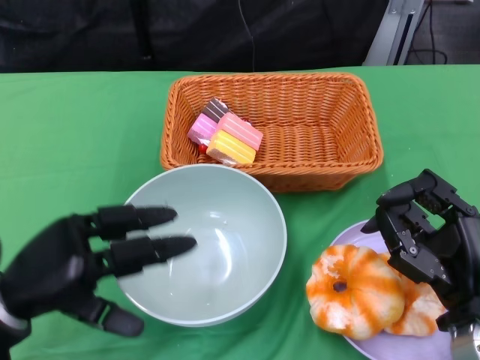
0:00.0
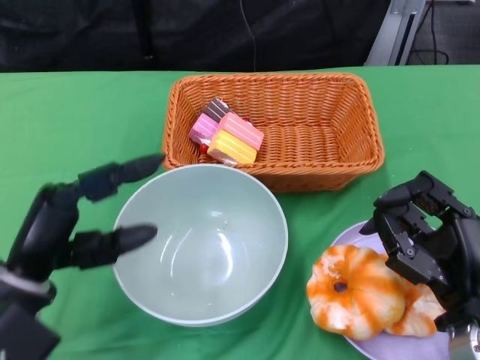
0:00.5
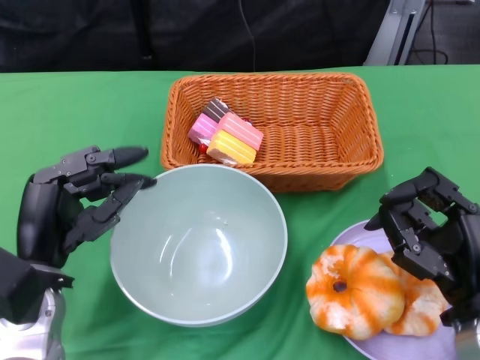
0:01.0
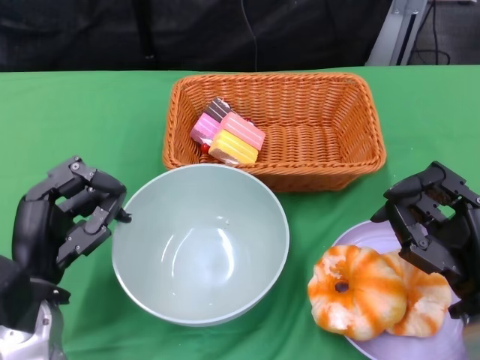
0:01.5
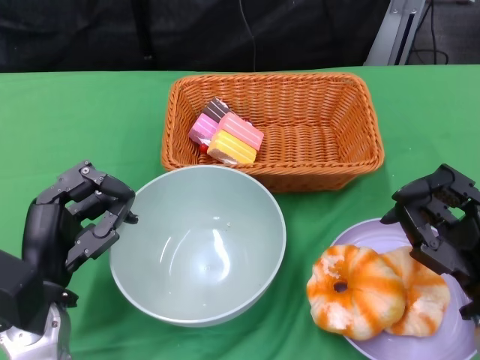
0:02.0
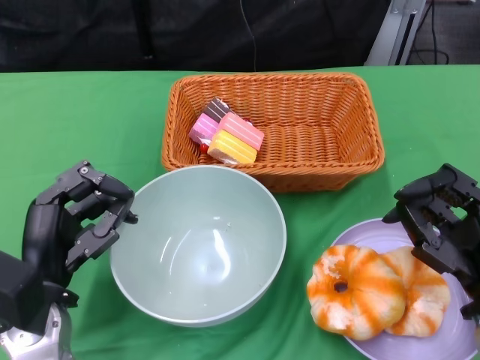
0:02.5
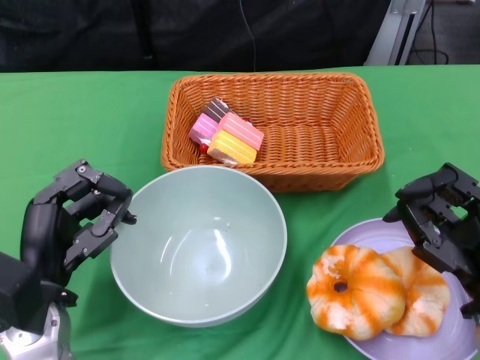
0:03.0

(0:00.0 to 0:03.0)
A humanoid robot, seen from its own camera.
Step, 0:00.0 - 0:03.0: Place the bowl on the table with the left gripper.
0:01.5 - 0:03.0: Both hands stay about where they are.

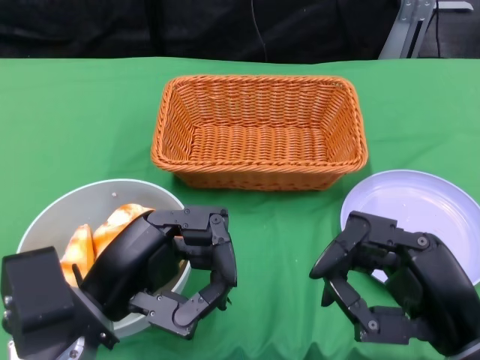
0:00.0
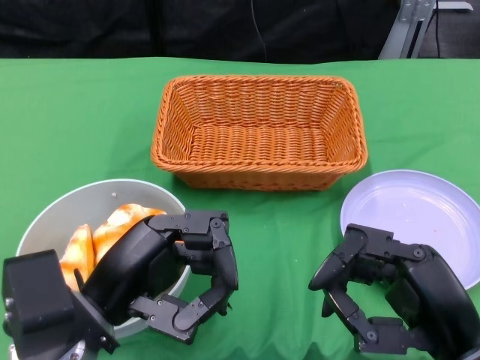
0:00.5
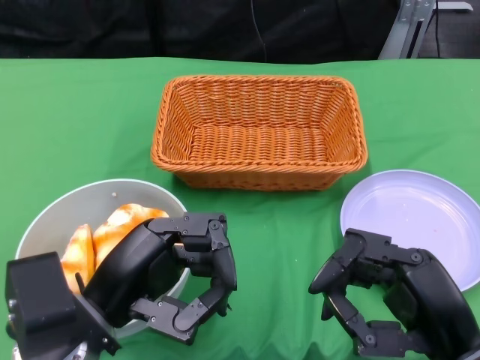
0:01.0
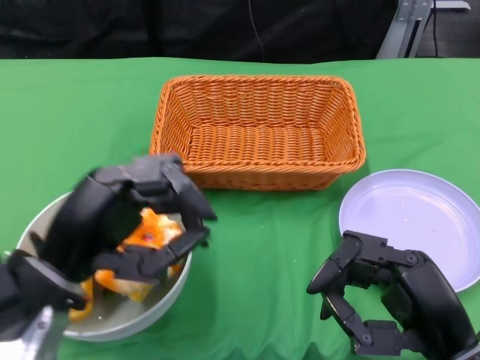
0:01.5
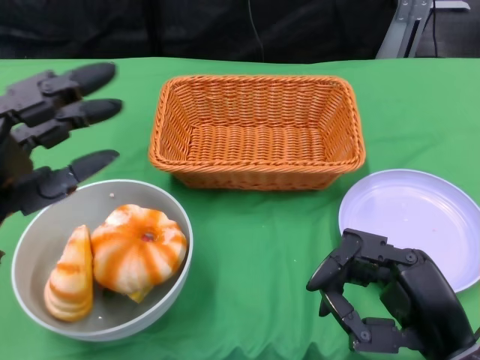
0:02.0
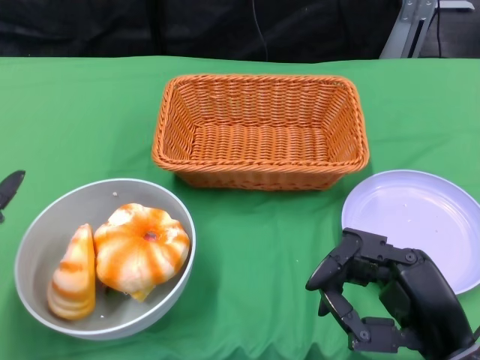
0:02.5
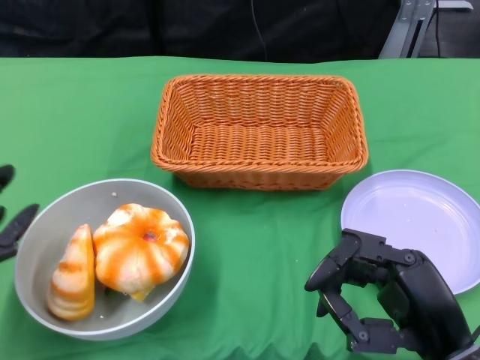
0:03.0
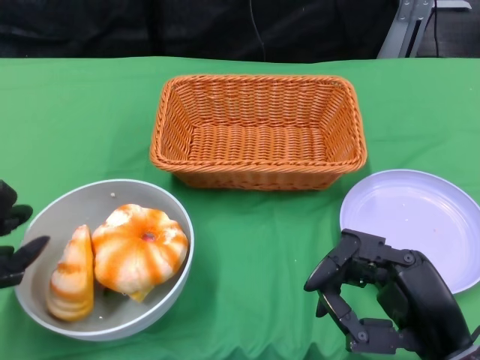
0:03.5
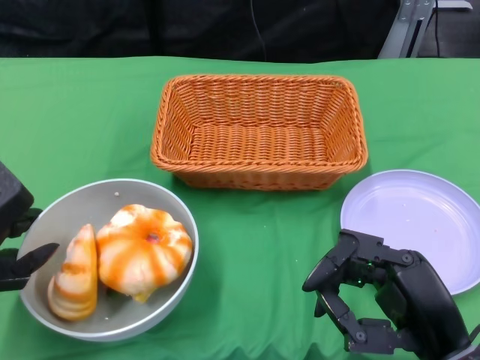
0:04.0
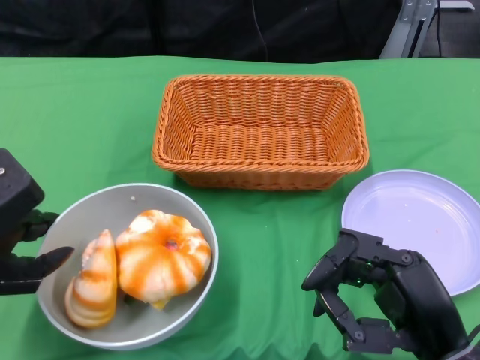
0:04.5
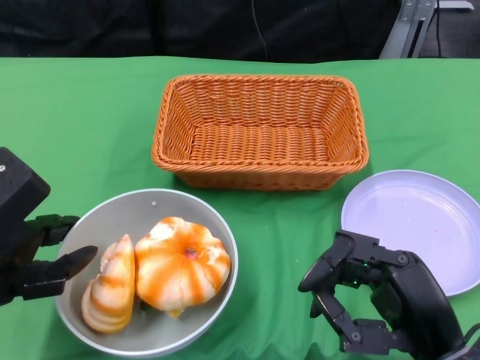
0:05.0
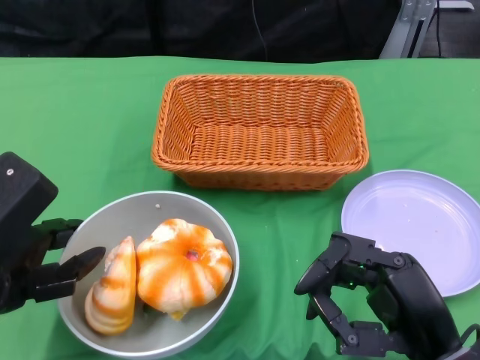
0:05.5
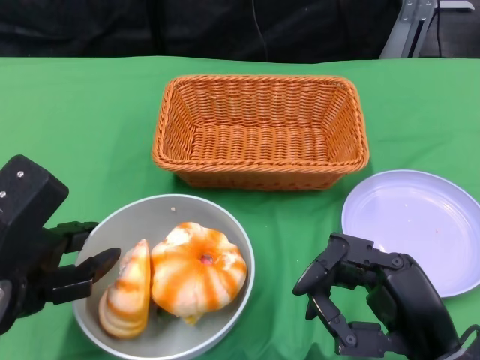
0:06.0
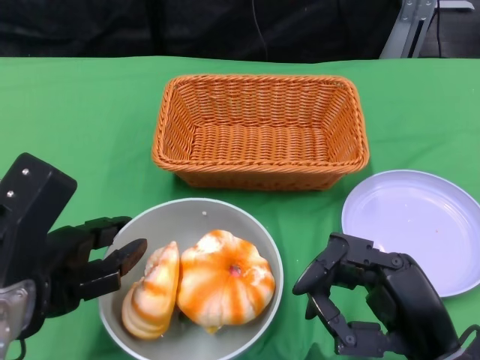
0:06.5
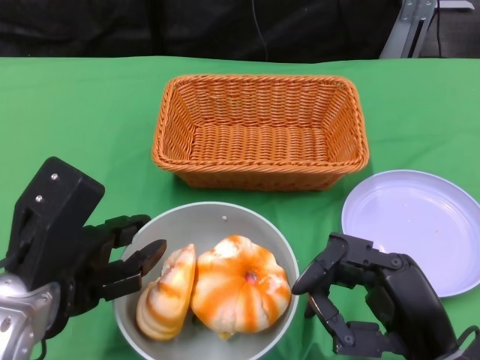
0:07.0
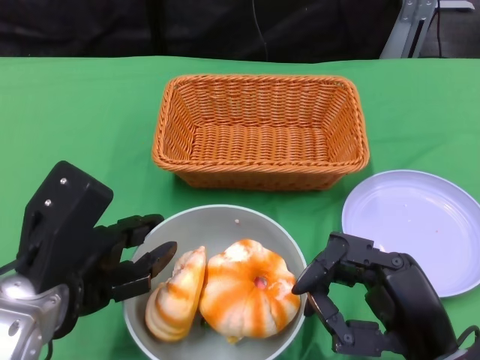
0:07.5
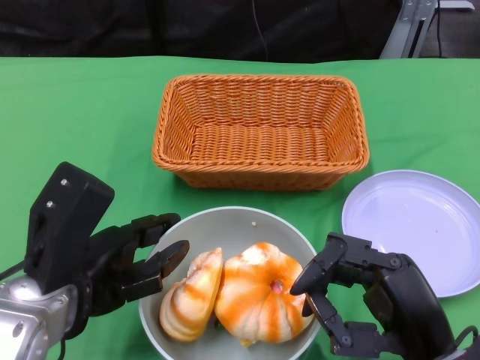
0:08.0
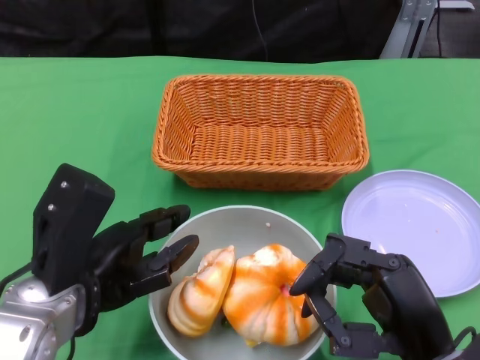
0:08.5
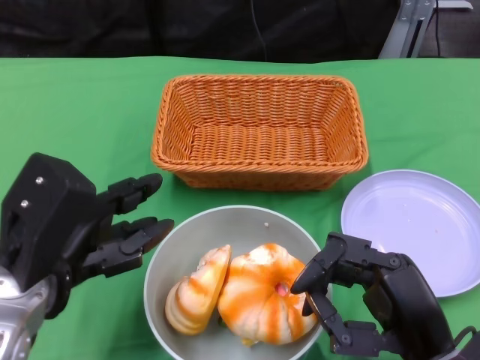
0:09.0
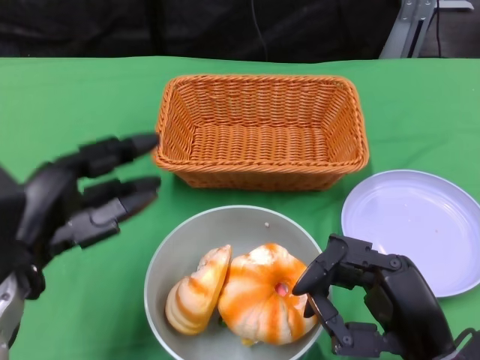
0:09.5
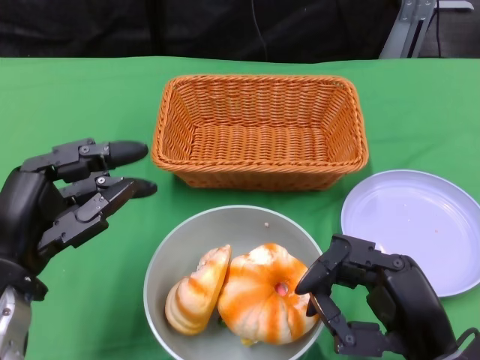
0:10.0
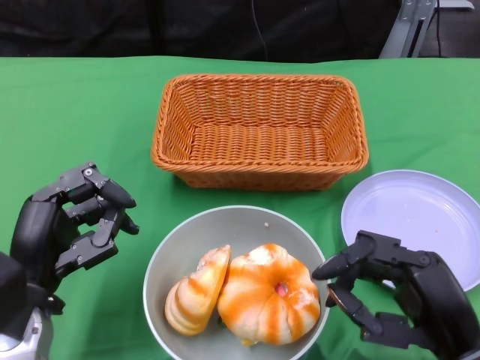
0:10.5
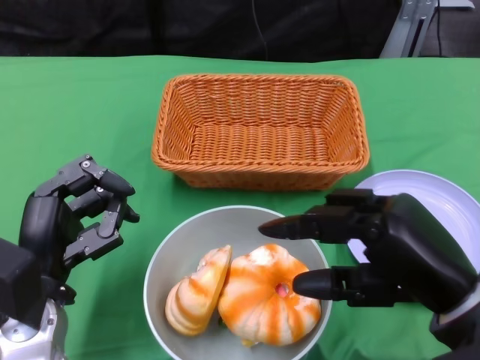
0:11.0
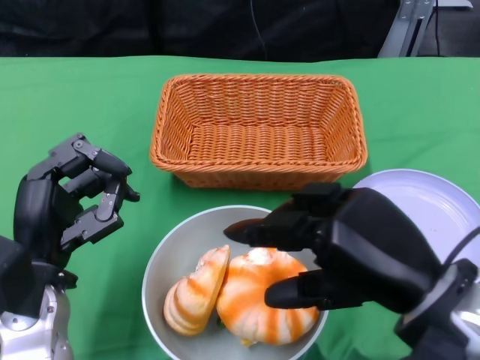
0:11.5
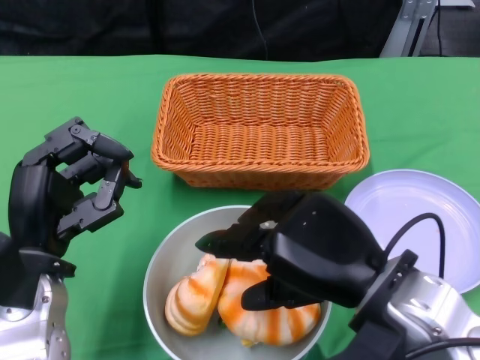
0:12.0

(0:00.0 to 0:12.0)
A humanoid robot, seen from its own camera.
Step, 0:00.0 - 0:09.0: Push the bowl to the center of the table using the left gripper.
0:02.0 - 0:04.0: The left hand changes place by some 5 cm.
0:06.0 - 0:08.0: The left hand moves about 5 cm.
0:10.0 - 0:12.0: The right hand goes some 5 cm upward.

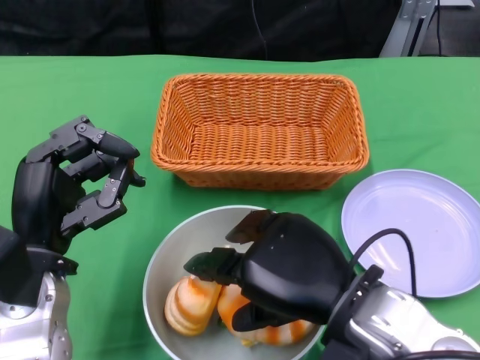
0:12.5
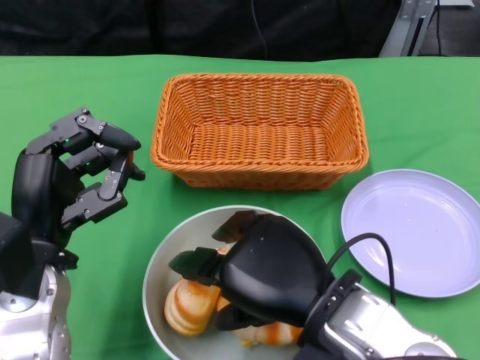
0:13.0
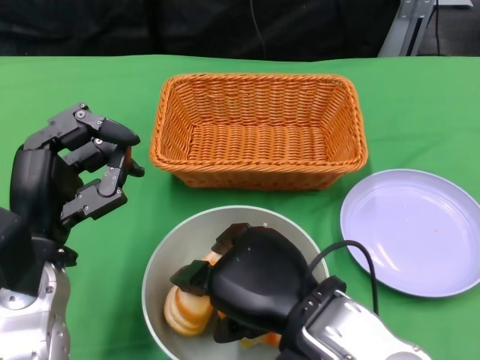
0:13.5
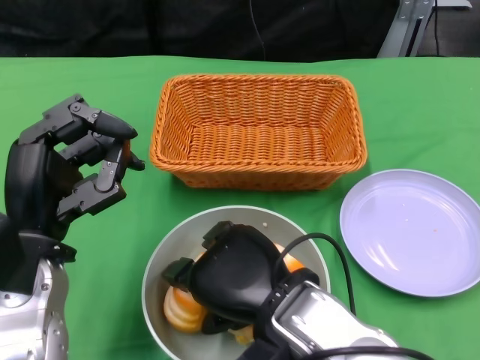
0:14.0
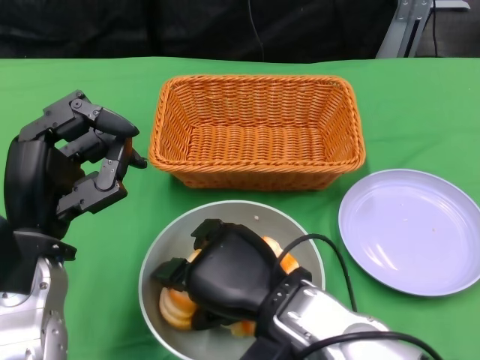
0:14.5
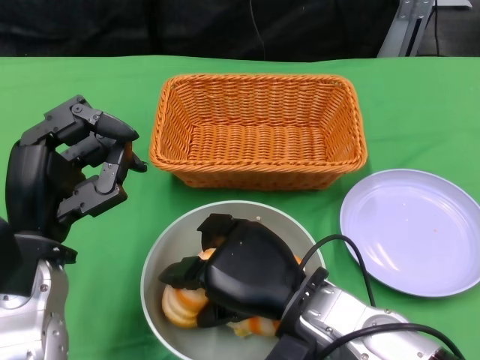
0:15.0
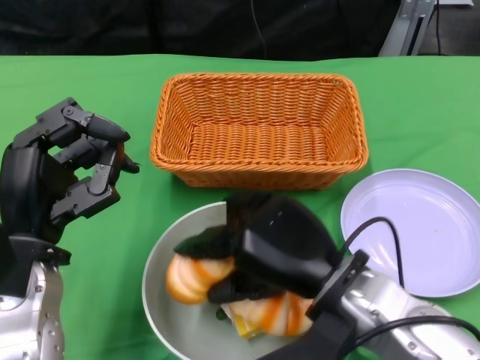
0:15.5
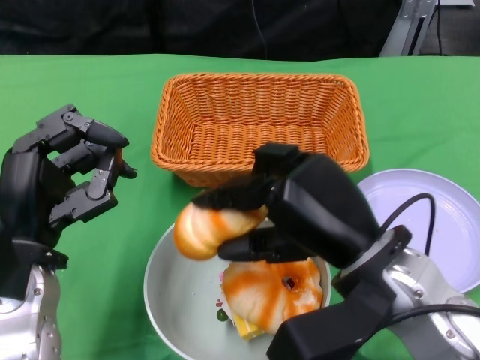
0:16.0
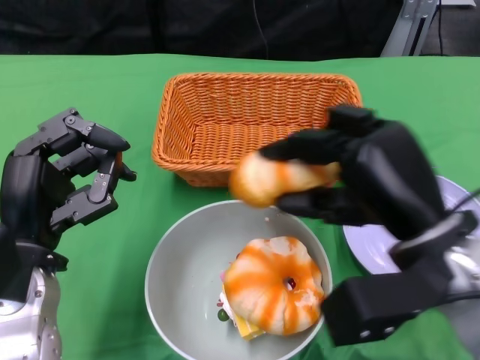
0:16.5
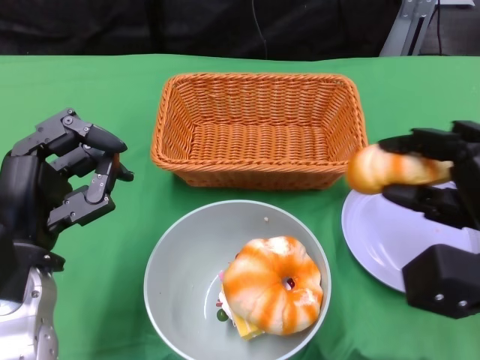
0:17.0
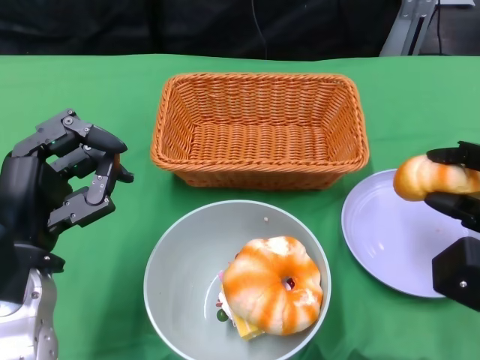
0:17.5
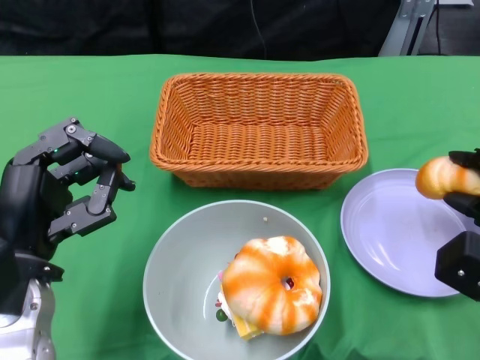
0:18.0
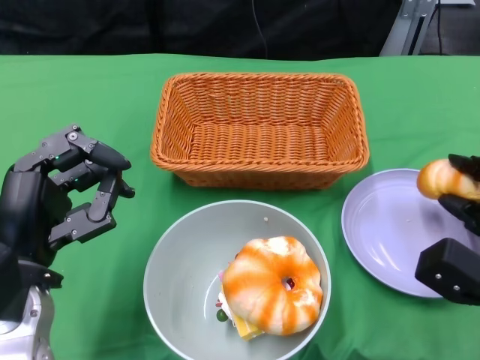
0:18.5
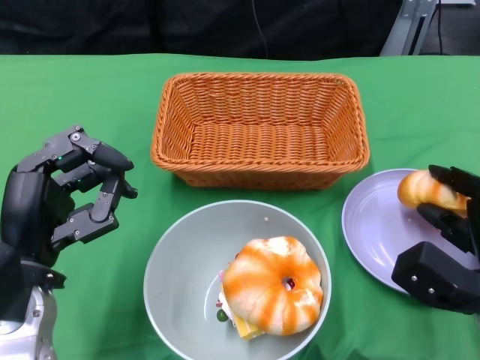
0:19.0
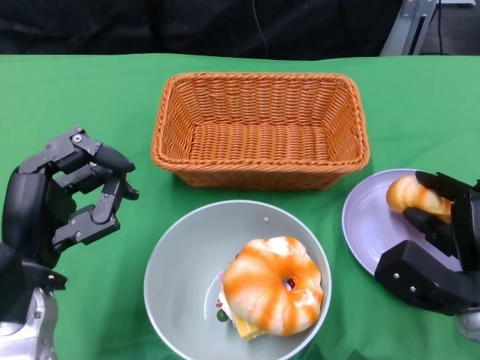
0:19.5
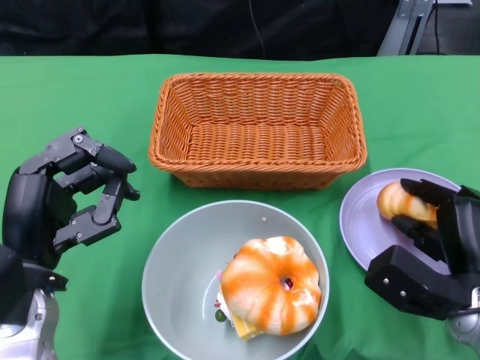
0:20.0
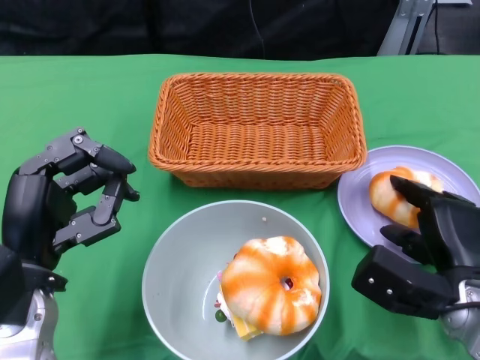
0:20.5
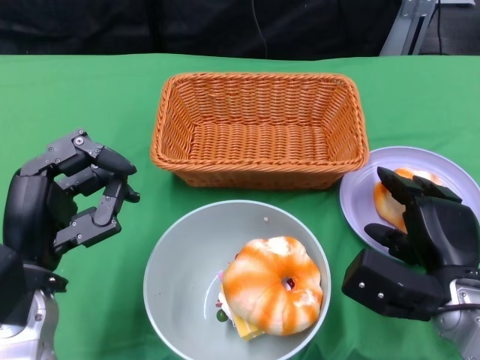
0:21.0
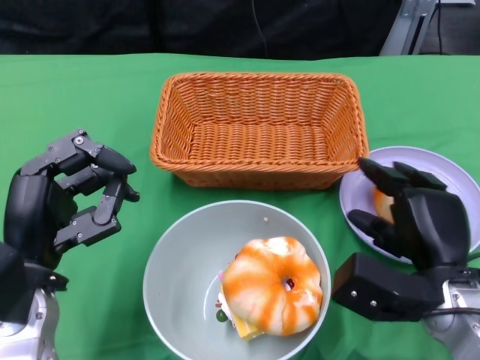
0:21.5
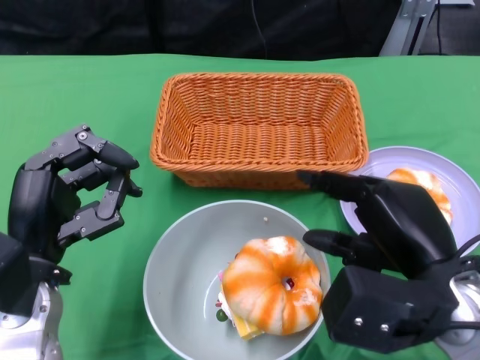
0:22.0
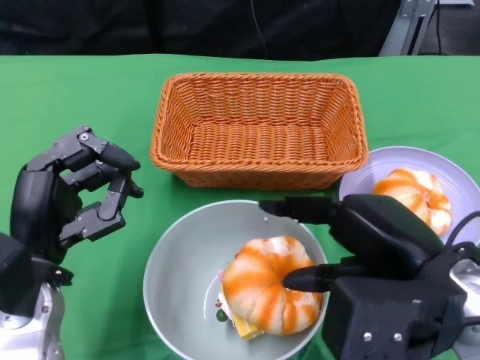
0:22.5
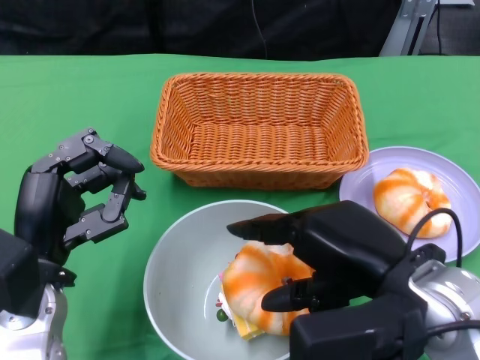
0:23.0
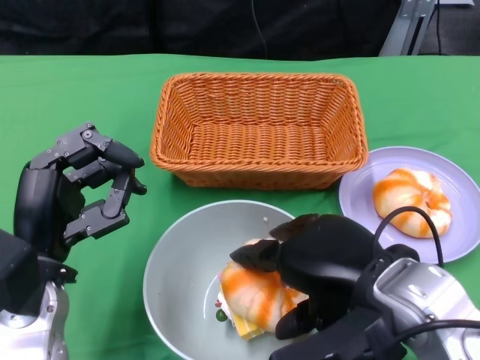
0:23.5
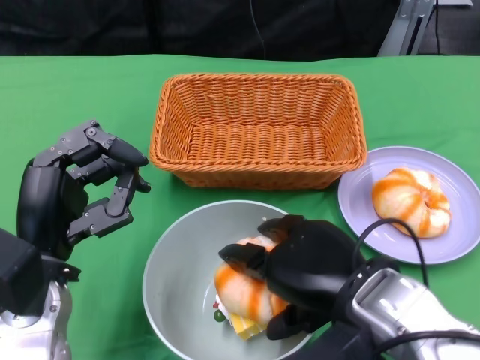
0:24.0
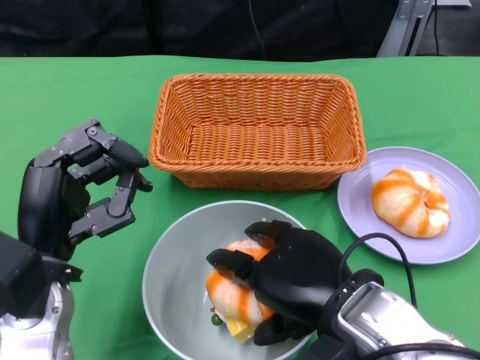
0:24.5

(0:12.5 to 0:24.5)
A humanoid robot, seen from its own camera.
0:12.5 - 0:14.5: The right hand is displaced to the left by approximately 5 cm.
0:14.5 - 0:16.5: The right hand travels to the right and upward by approximately 15 cm.
0:16.5 - 0:18.5: The right hand goes approximately 15 cm downward and to the right.
0:18.5 - 0:20.5: The right hand is displaced to the left by approximately 5 cm.
0:20.5 - 0:22.5: The right hand goes roughly 15 cm upward and backward.
0:22.5 - 0:24.5: The right hand heads to the left, covering some 5 cm.
